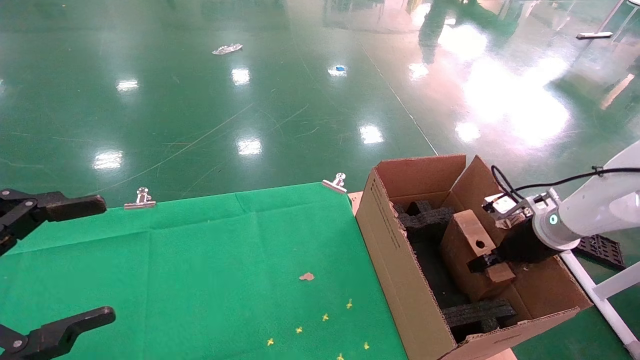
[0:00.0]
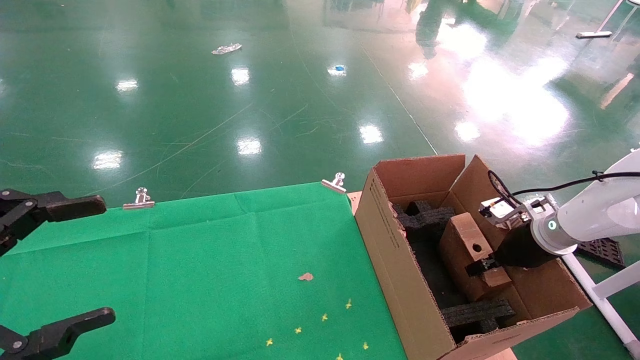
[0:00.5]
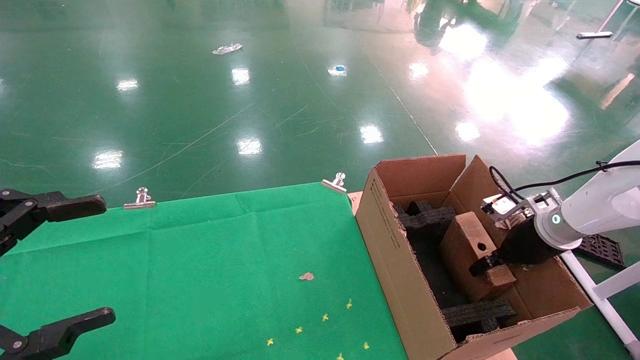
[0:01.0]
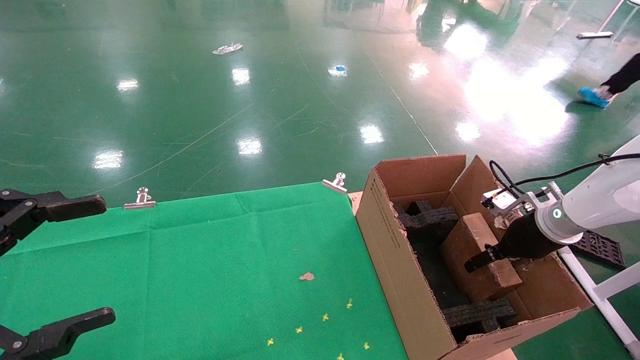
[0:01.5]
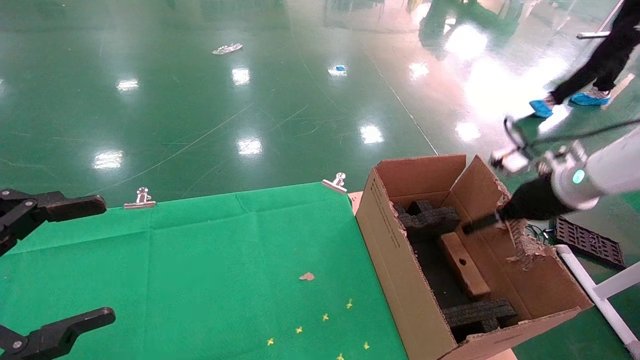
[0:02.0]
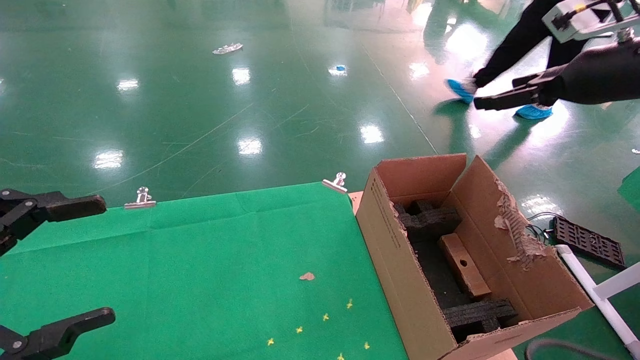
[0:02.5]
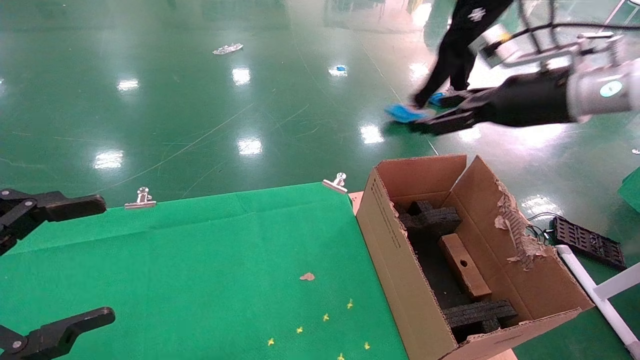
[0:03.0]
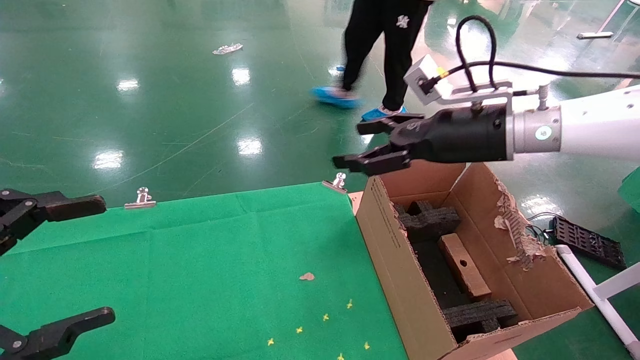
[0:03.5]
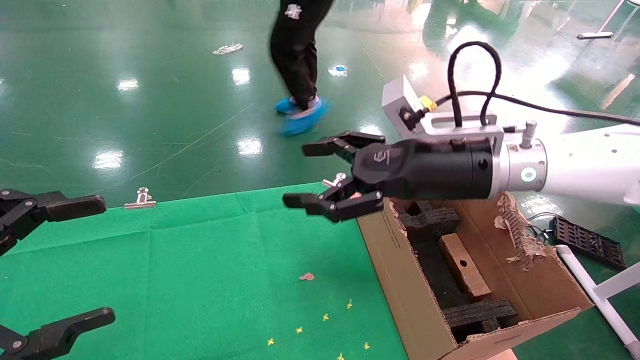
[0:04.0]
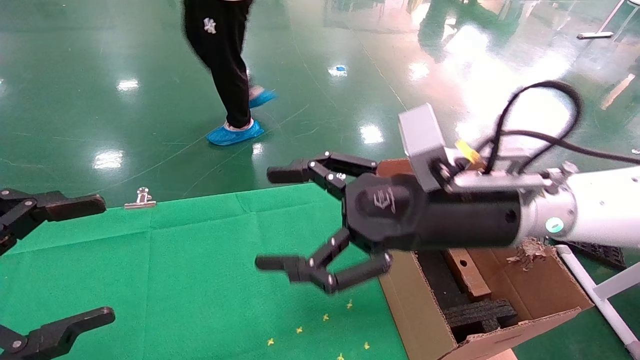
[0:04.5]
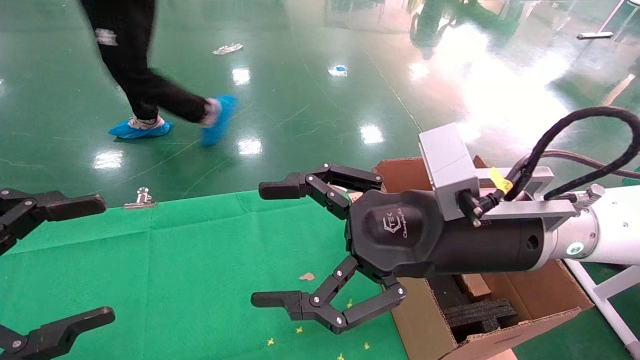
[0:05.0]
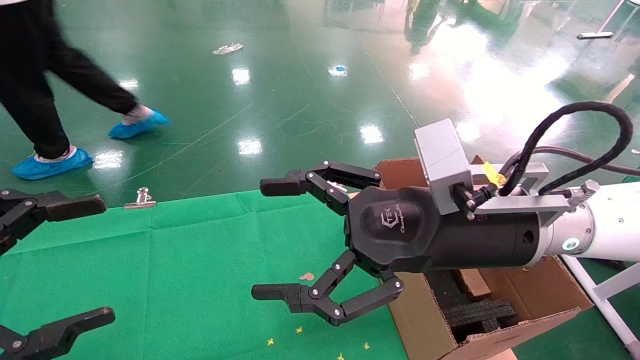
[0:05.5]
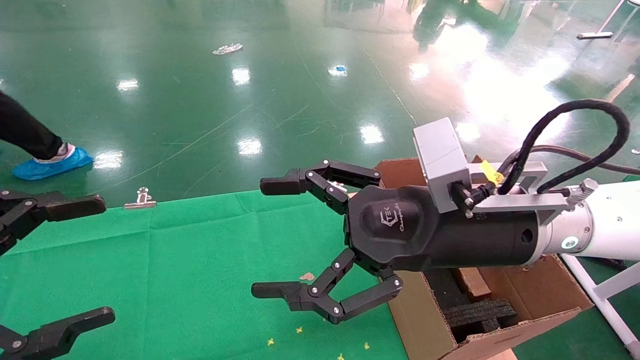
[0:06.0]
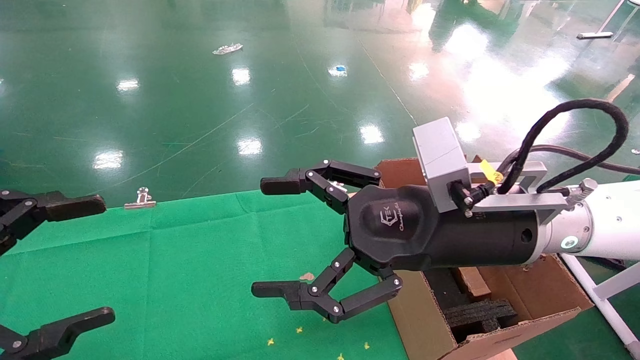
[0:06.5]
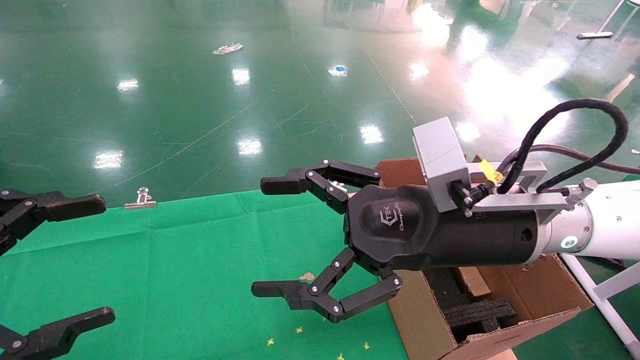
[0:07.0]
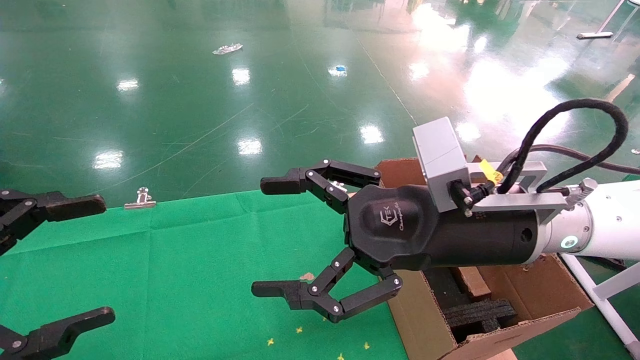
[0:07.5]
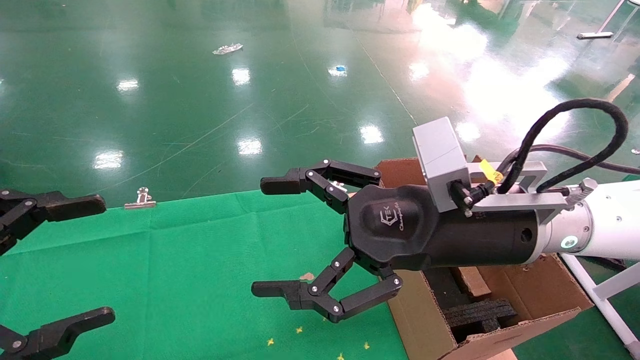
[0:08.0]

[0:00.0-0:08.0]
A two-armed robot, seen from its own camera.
Task of the whole recording: using a robotic arm to pick up a cardboard box and palace it the carton.
Step, 0:00.0 to 0:02.0: Place the mouse and the power cord paper box into the container.
0:00.0 to 0:02.0: The right gripper goes approximately 10 cm upward, and opens.
0:02.0 to 0:04.0: The right gripper shifts about 20 cm to the left.
0:04.0 to 0:06.0: The right gripper heads backward, covering approximately 10 cm.
0:06.0 to 0:08.0: Neither gripper changes place.

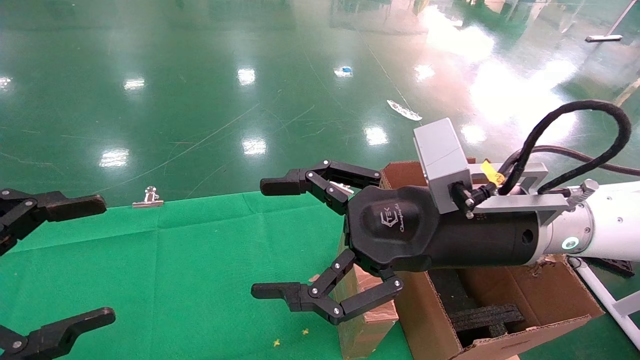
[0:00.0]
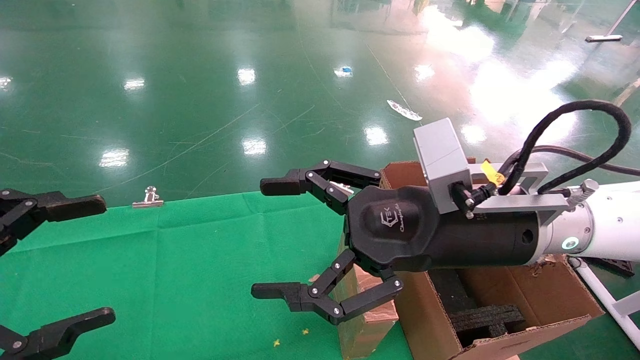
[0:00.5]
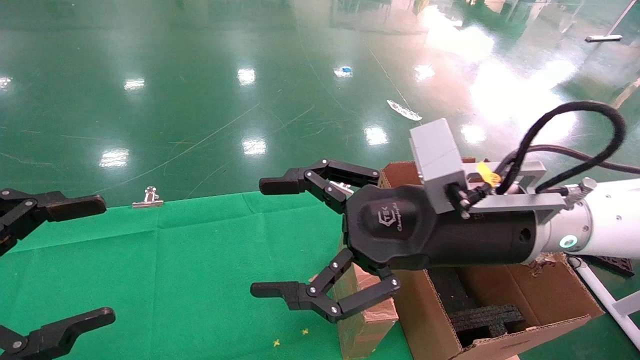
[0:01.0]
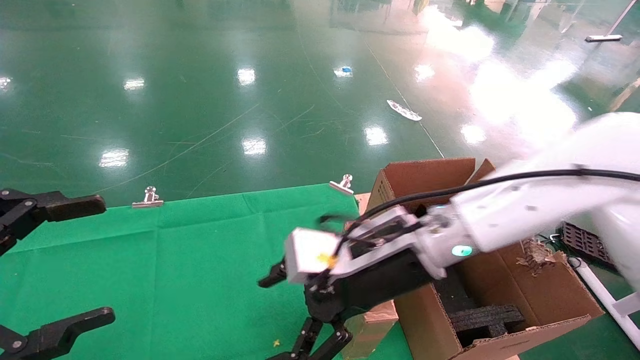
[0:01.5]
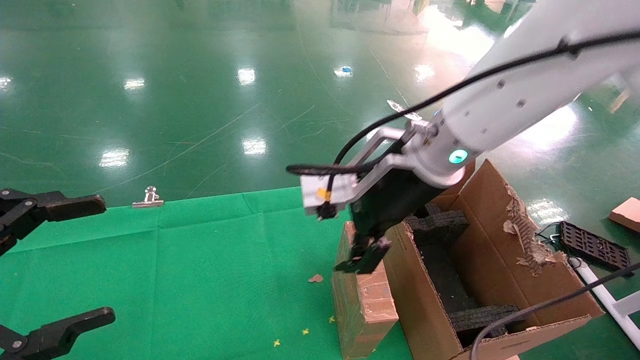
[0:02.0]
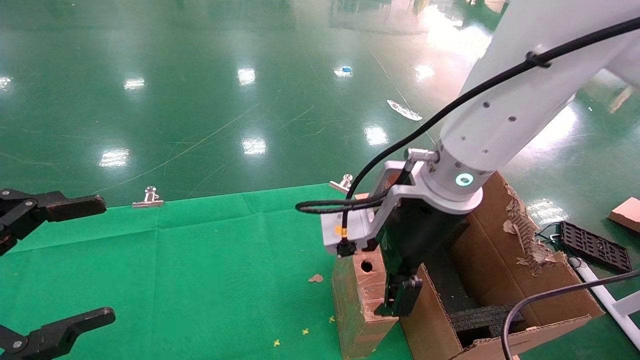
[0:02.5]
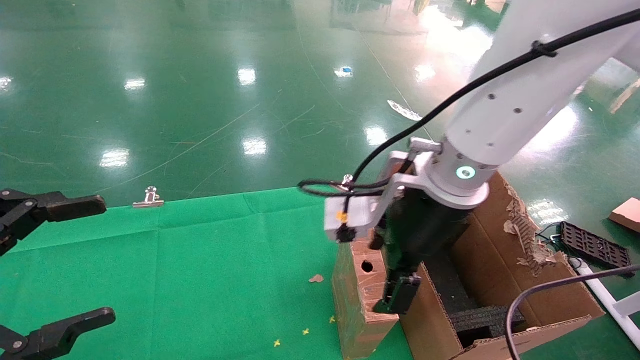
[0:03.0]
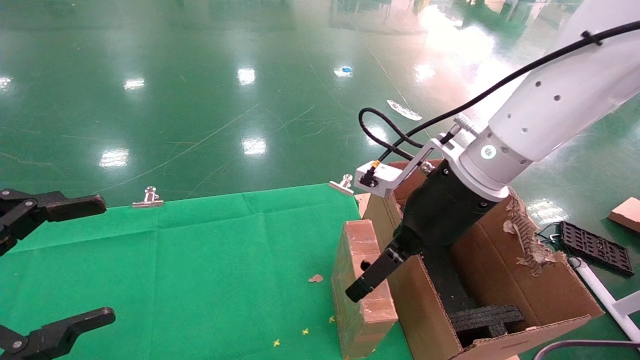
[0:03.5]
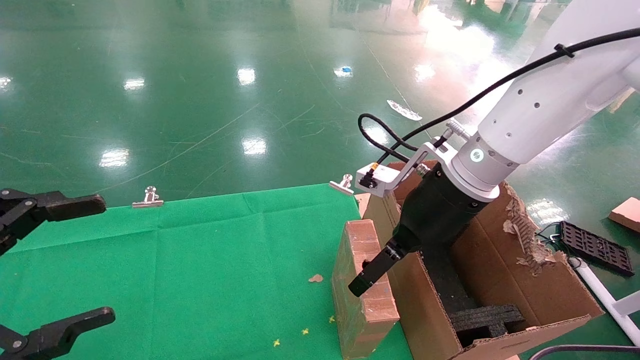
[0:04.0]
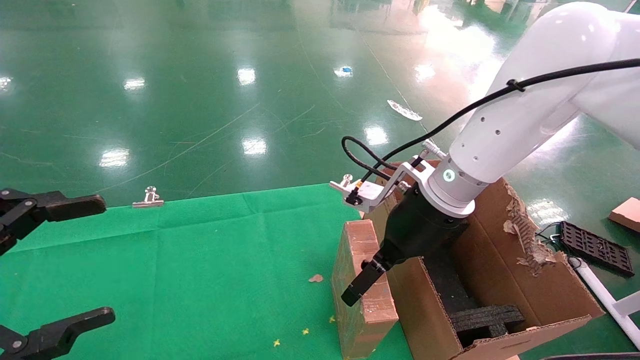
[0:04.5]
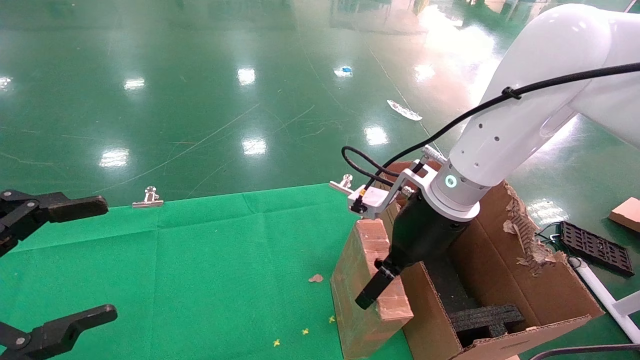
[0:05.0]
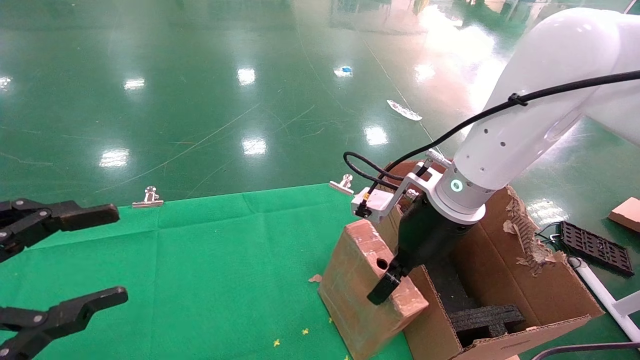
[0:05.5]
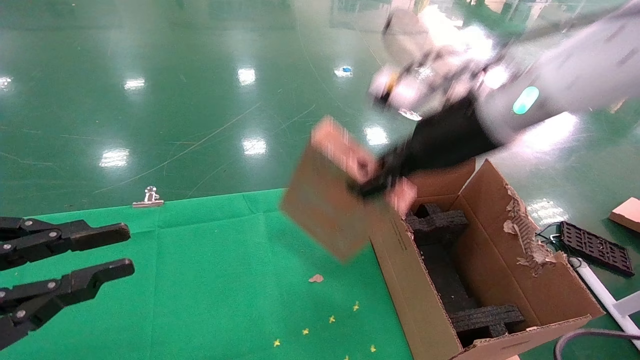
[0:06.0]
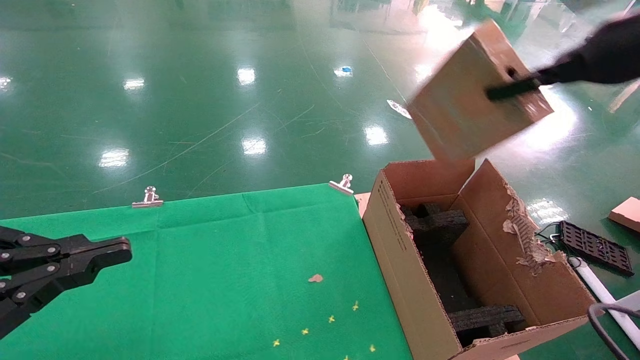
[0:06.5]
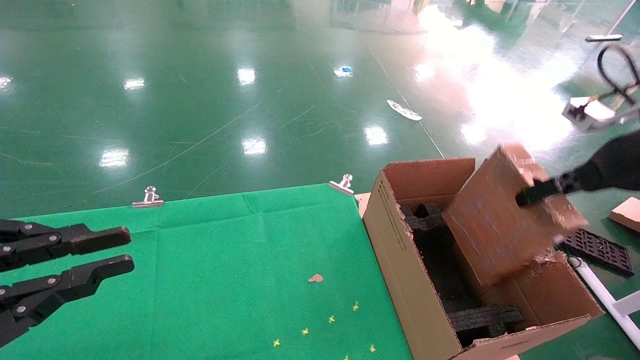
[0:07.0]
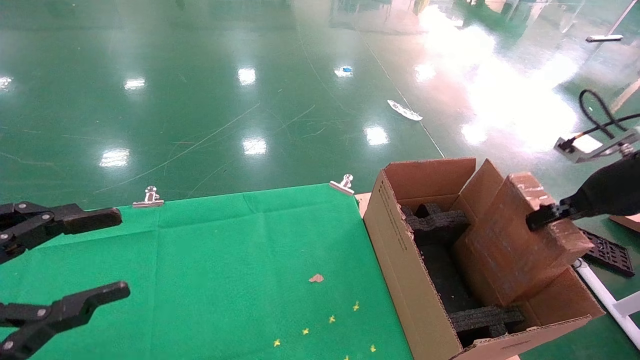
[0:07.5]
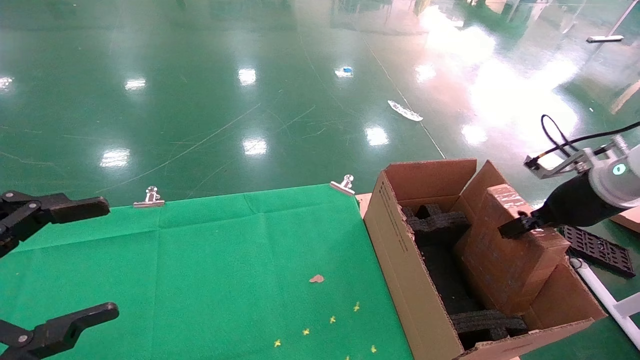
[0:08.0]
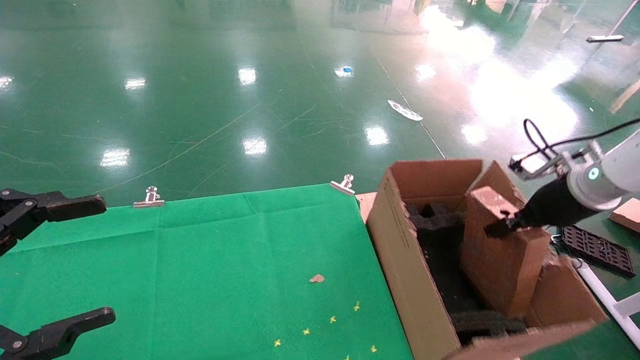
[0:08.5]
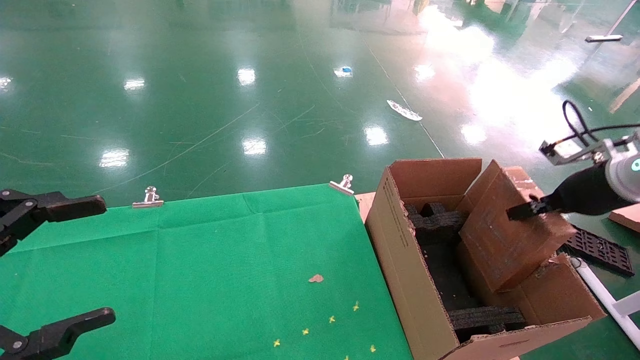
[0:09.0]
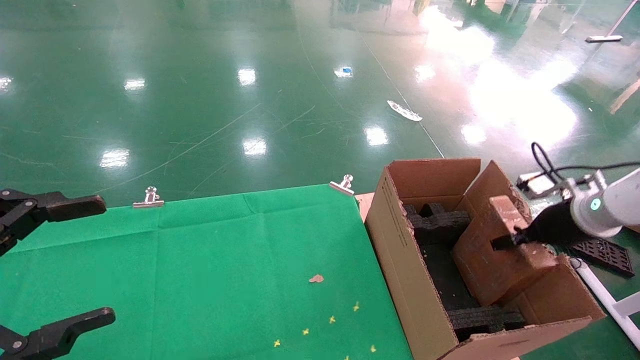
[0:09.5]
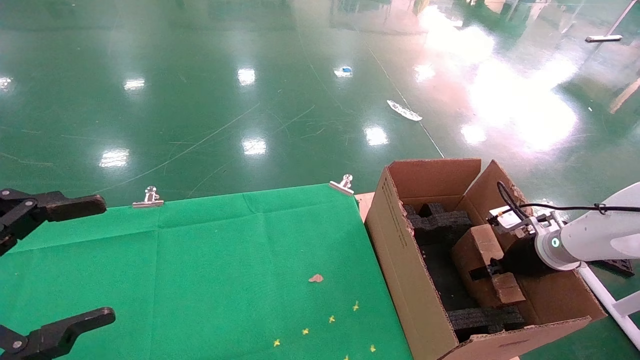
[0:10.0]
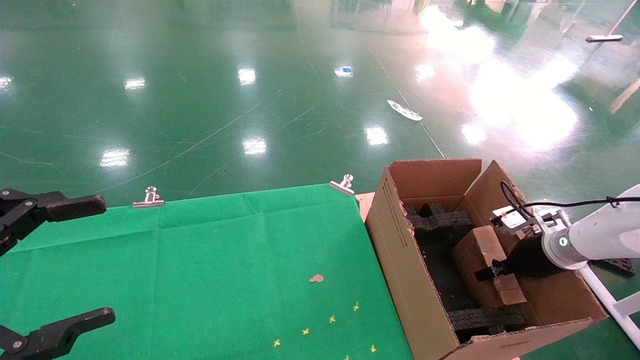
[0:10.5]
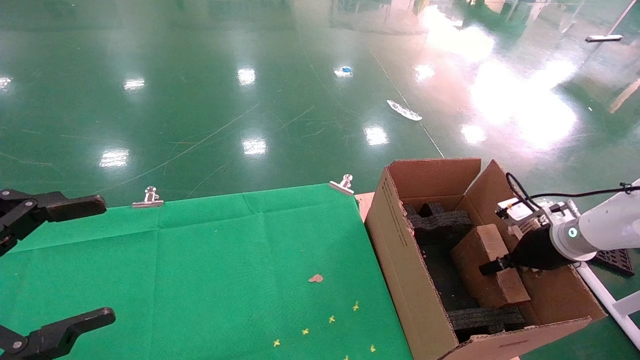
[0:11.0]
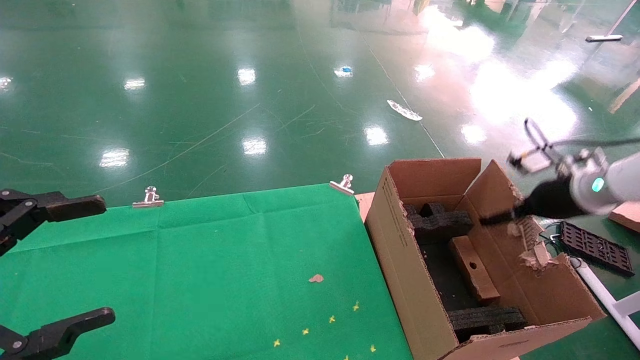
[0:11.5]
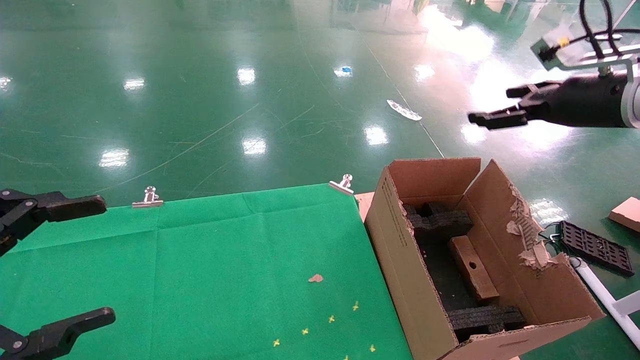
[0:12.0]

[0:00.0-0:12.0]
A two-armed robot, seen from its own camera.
Task of the whole recording: using a robotic arm to pick up a cardboard box and palace it the carton.
Step, 0:01.5 to 0:05.5: Pick up the mouse and the power cord paper box.
Step, 0:06.0 to 0:11.0: Place the mouse and the power cord paper box into the container.
0:00.0 to 0:02.0: The right gripper travels forward and to the left by roughly 10 cm.
0:02.0 to 0:04.0: The right gripper heads to the right, covering about 5 cm.
0:04.0 to 0:06.0: The left gripper closes its fingers. The right gripper goes some 10 cm upward, and closes up.
0:06.0 to 0:08.0: The right gripper heads to the right and downward, covering approximately 25 cm; the left gripper opens.
0:08.0 to 0:10.0: The right gripper travels downward by approximately 15 cm.
0:10.0 to 0:12.0: The right gripper shifts roughly 25 cm upward, and opens up.
